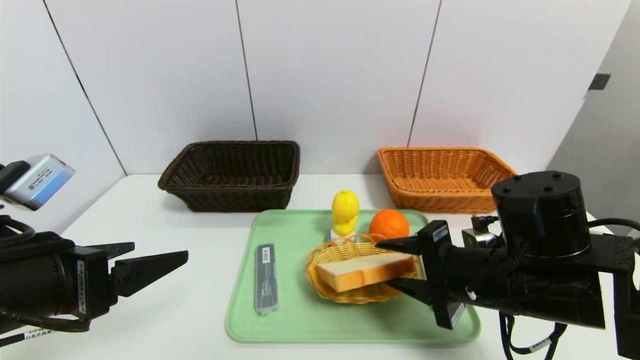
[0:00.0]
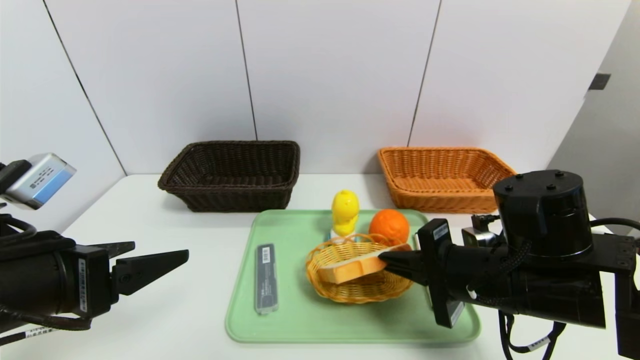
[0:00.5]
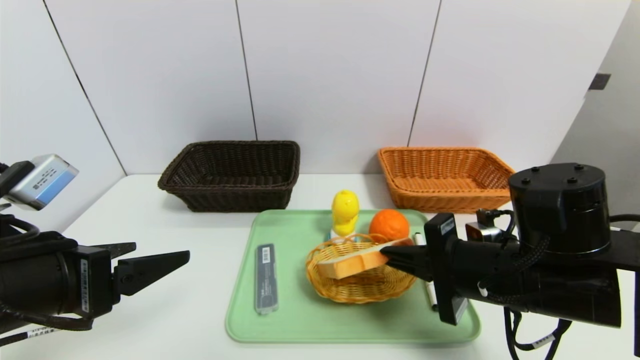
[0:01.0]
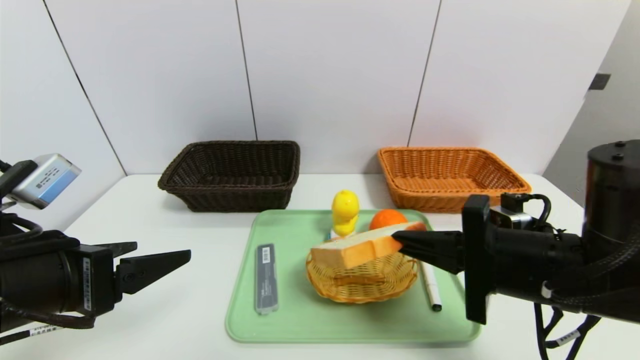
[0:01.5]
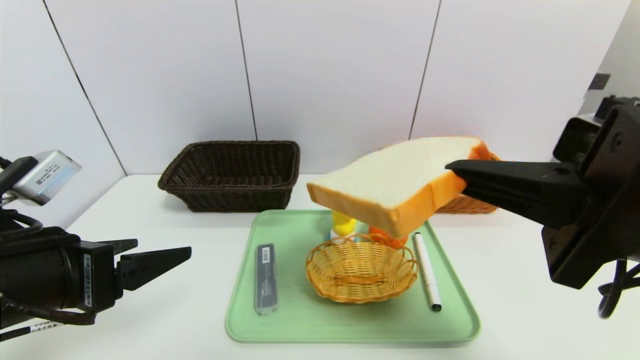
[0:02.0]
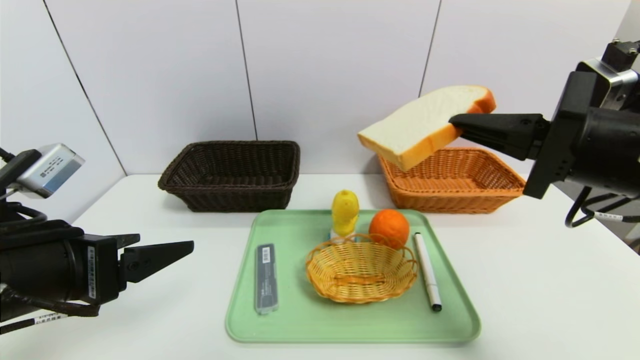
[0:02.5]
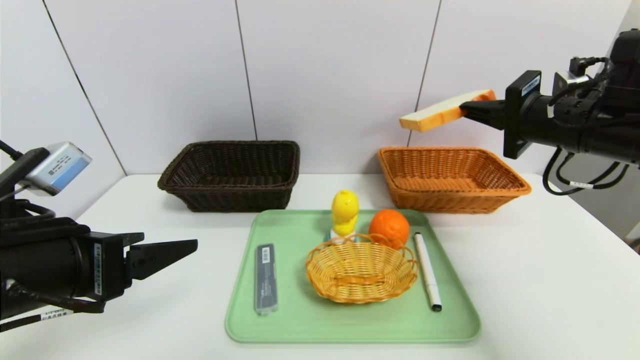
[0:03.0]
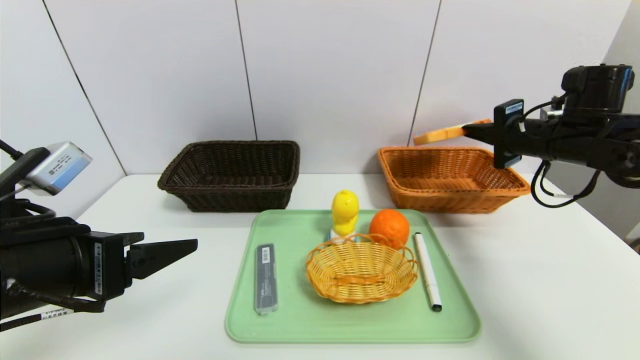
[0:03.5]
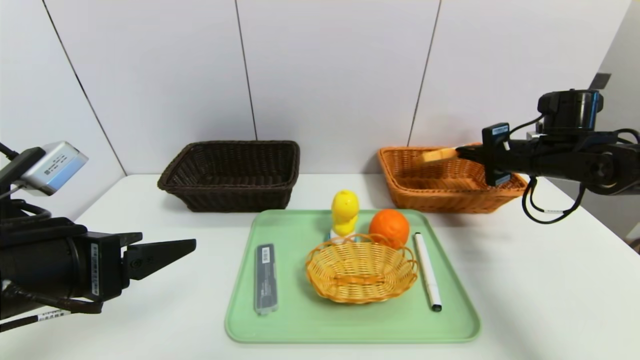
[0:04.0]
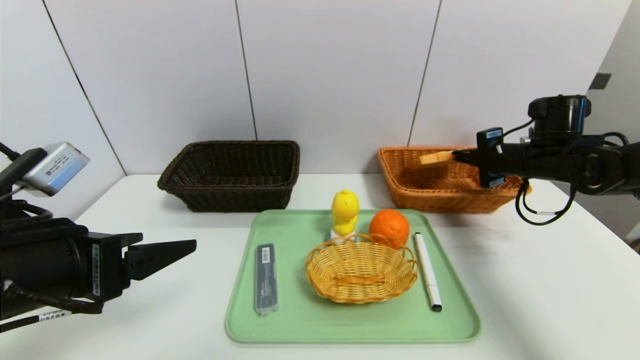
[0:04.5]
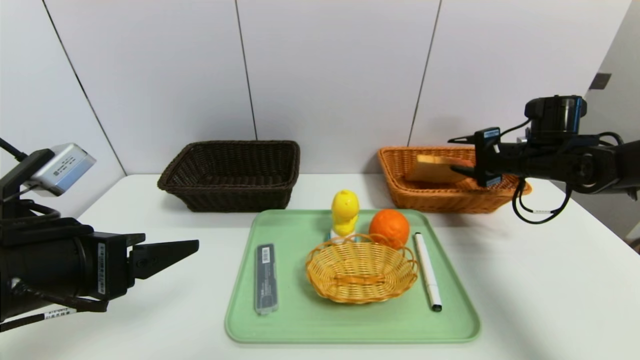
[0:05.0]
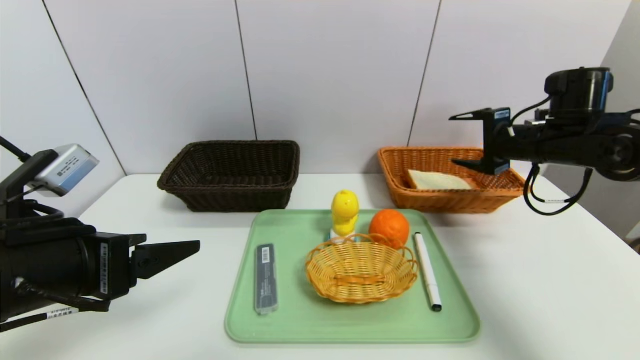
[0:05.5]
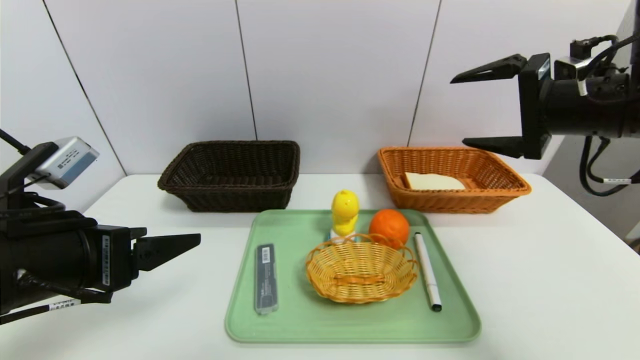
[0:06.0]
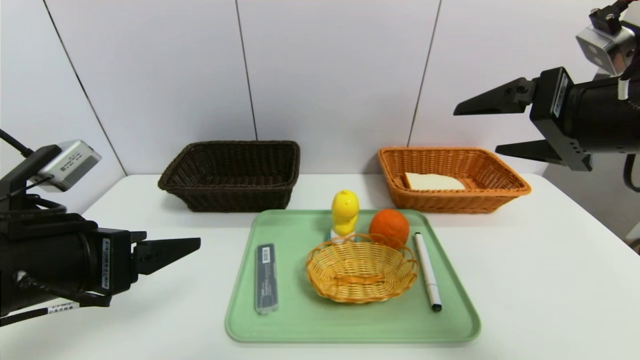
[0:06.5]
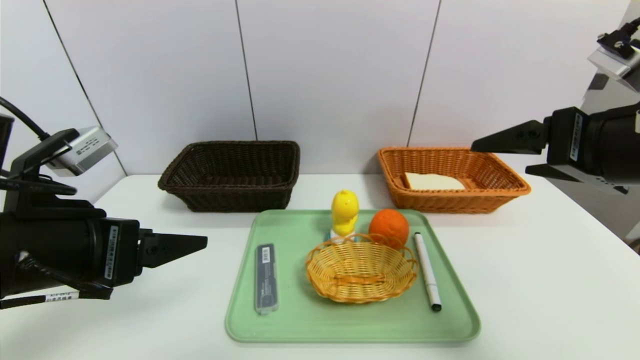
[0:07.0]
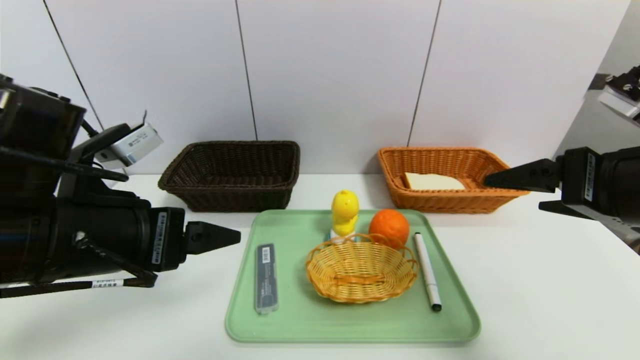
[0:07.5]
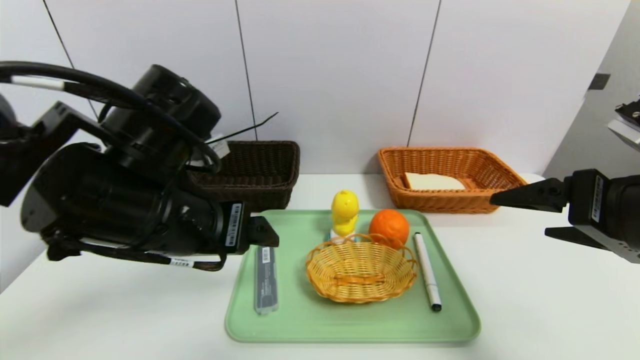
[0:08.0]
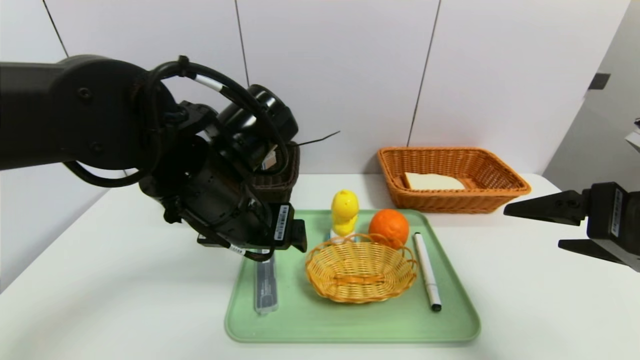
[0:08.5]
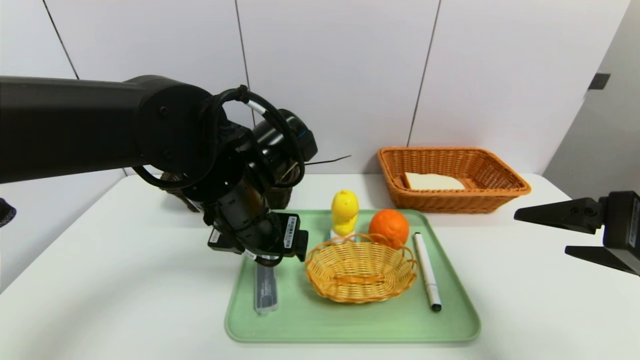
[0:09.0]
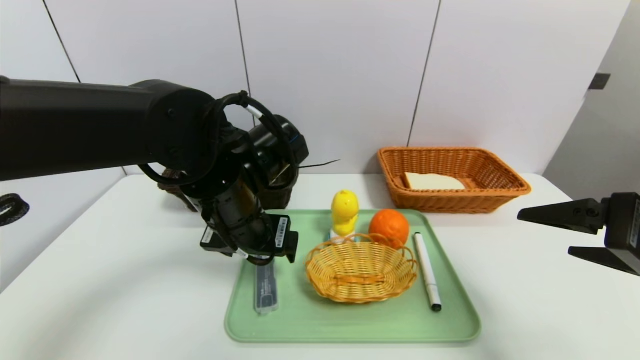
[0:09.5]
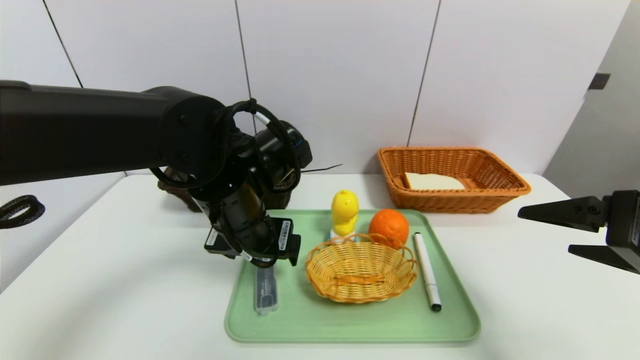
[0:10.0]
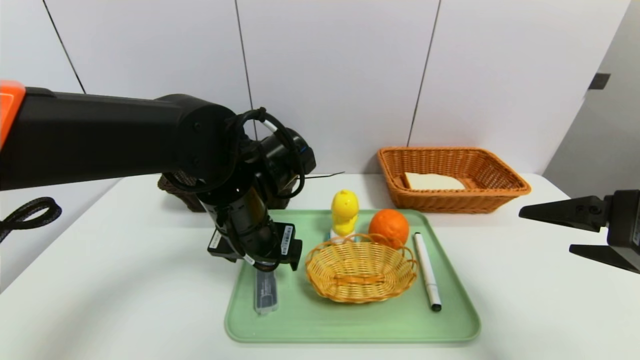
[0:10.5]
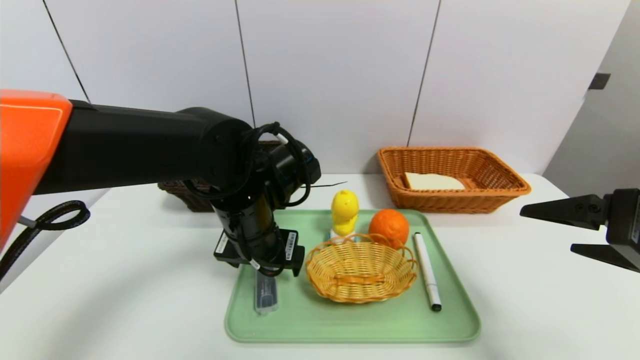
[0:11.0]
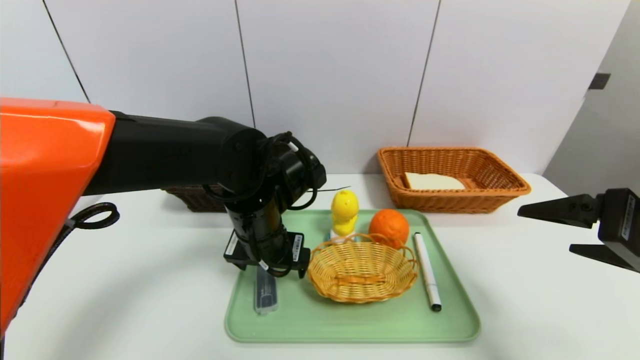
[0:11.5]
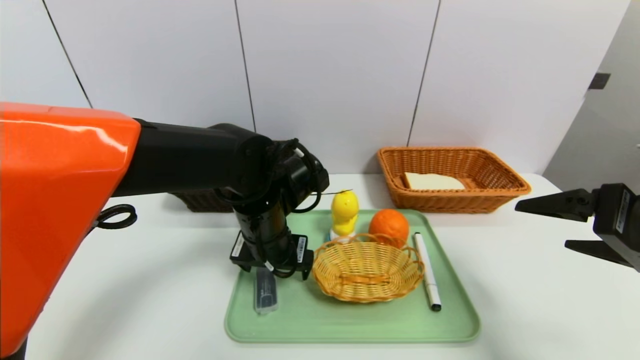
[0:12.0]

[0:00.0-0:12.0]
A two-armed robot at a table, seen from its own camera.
Task of the whole recording: place the food in the right basket with the right gripper, and place the non food items in the left basket with the left gripper.
Step, 0:00.0 to 0:05.5: Grasp the bread slice and put it in the right basket.
0:00.0 to 0:02.0: The right gripper goes about 15 cm upward and backward, and closes its fingers.
0:02.0 to 0:04.0: The right gripper shifts some 25 cm forward and to the right.
0:04.0 to 0:06.0: The right gripper is displaced backward, upward and to the left by roughly 20 cm, and opens.
0:06.0 to 0:08.0: The right gripper moves backward, some 10 cm. The left gripper shifts about 10 cm to the right and forward.
0:08.0 to 0:10.0: The left gripper is displaced forward by about 5 cm.
0:10.0 to 0:12.0: The left gripper ends up some 5 cm from where it was.

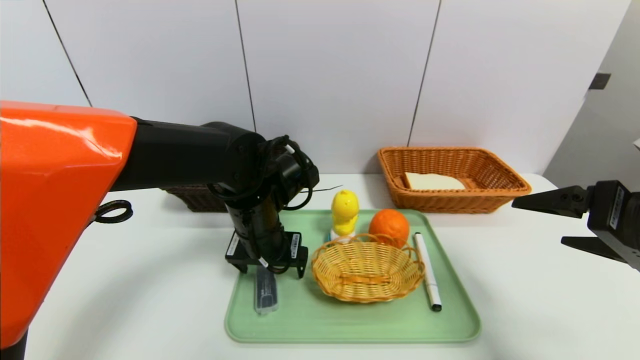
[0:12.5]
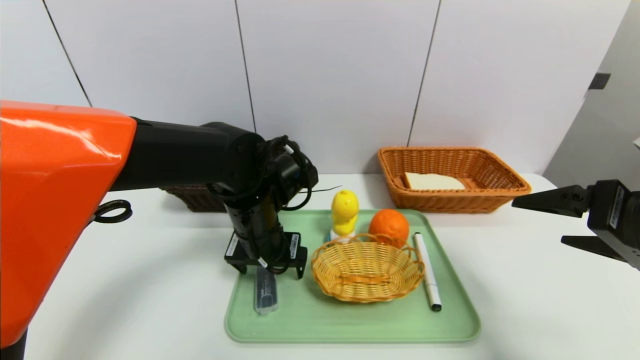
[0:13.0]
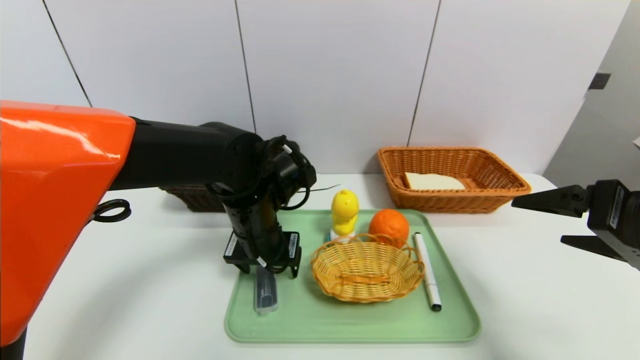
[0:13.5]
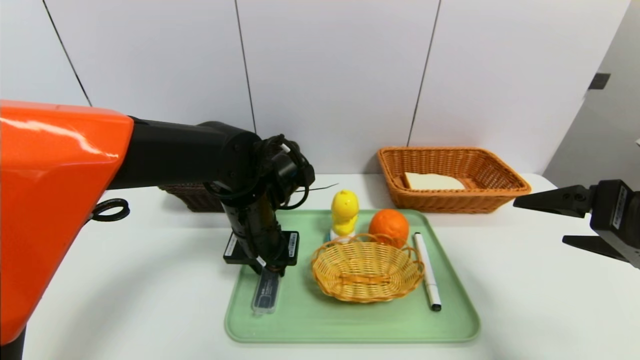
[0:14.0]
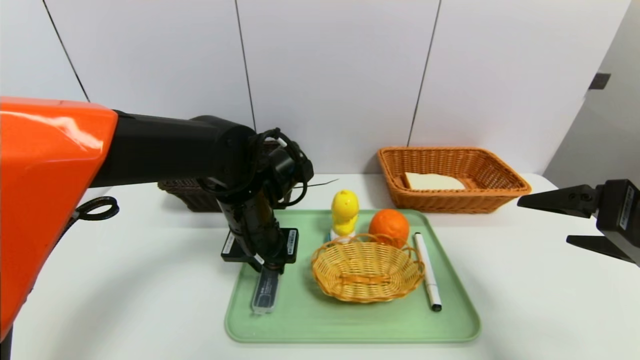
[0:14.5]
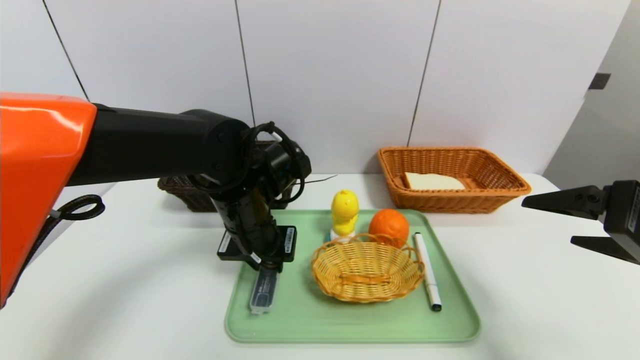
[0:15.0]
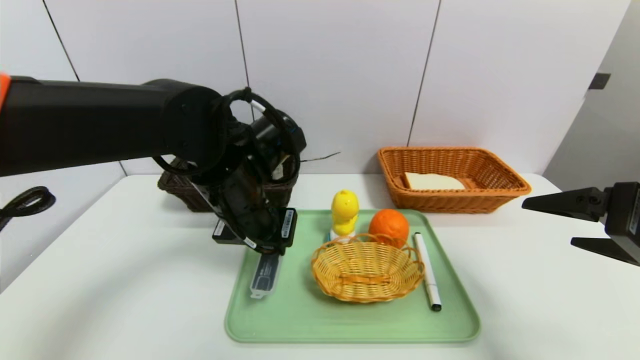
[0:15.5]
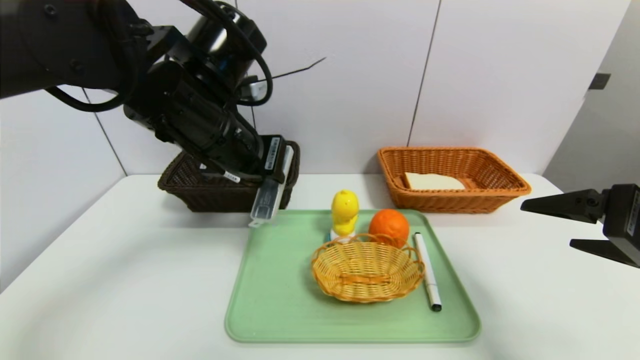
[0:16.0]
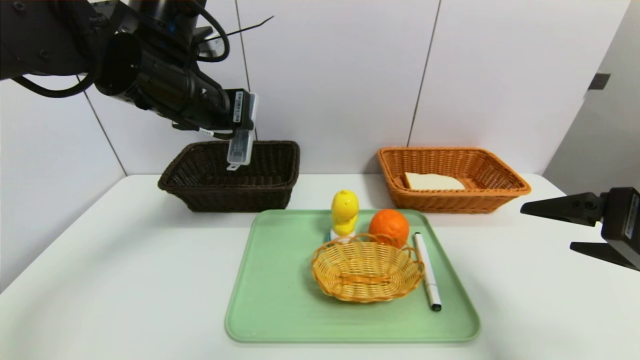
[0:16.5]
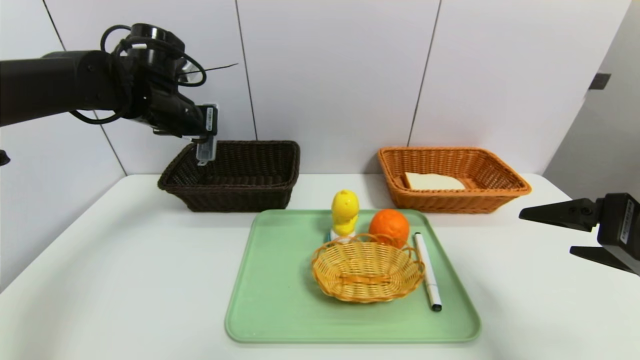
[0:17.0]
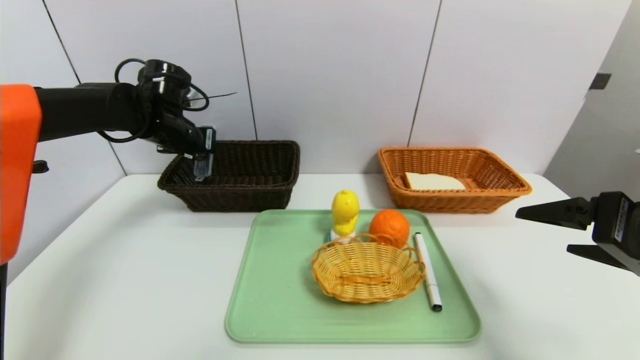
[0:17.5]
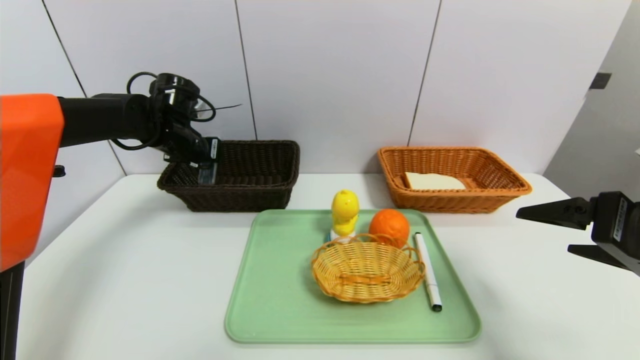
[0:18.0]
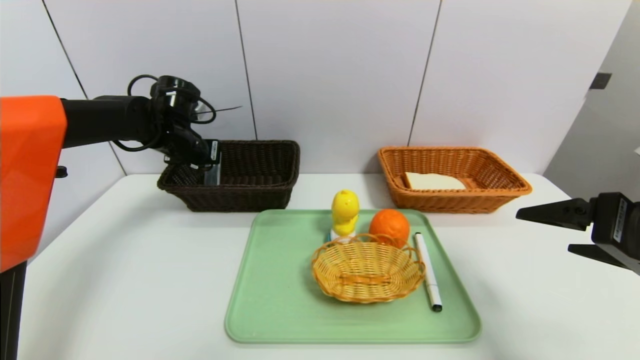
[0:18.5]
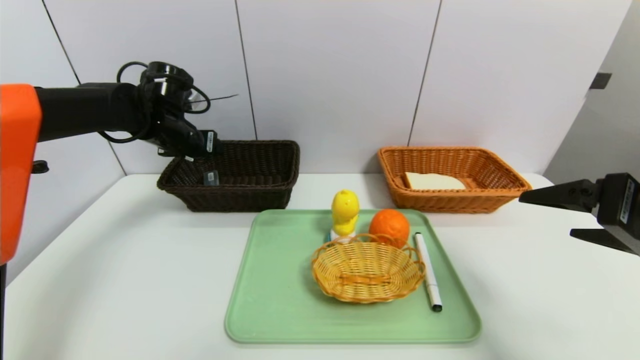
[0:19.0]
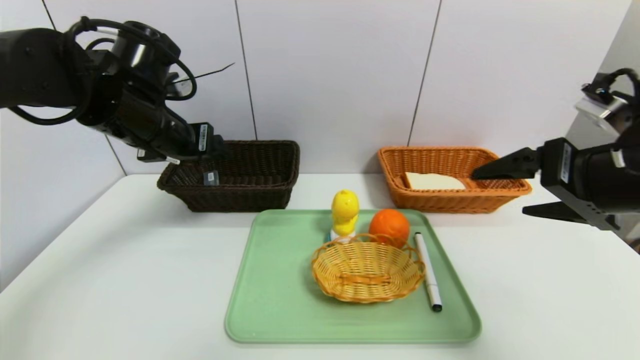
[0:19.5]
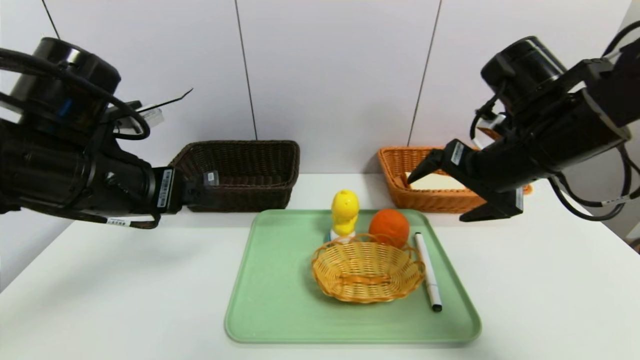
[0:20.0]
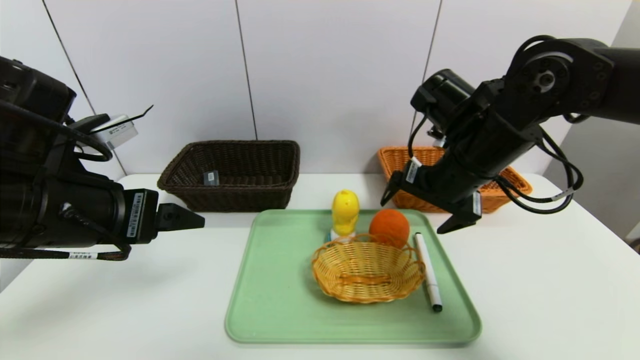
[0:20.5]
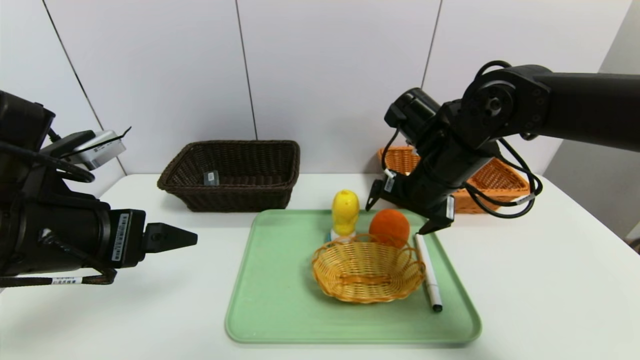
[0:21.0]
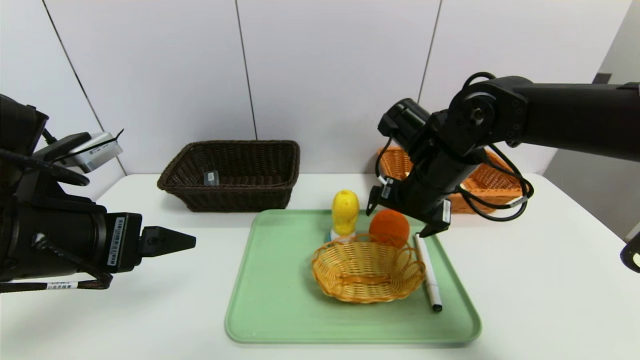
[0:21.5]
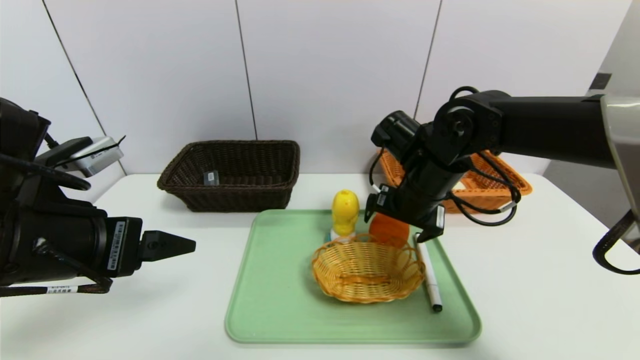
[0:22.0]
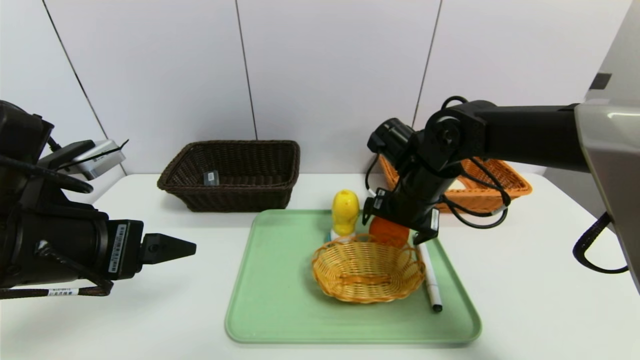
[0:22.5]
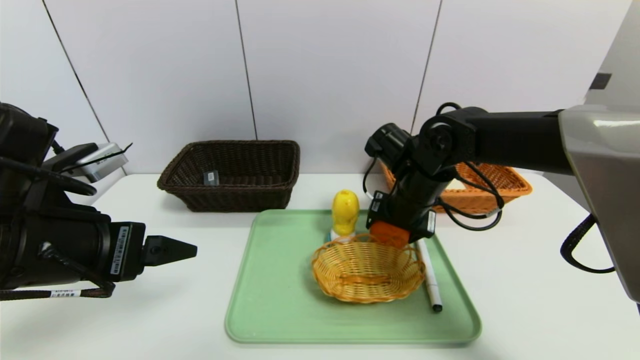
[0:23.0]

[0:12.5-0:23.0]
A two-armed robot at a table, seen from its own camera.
Task of the whole recording: place the food in the right basket with the right gripper, and place the non food items in the left basket with the left gripper.
Step, 0:12.5 to 0:19.0: Grasp the compass and put it in the left basket.
0:12.5 to 0:14.5: The left gripper closes up.
0:14.5 to 0:16.5: The left gripper is displaced upward and to the left by approximately 15 cm.
0:16.5 to 0:19.0: The left gripper heads forward, downward and to the left, covering about 15 cm, and opens up.
0:19.0 to 0:21.0: The left gripper shifts some 25 cm backward. Meanwhile the right gripper heads forward and to the left, covering some 25 cm.
0:21.0 to 0:23.0: The right gripper shifts about 5 cm downward.
